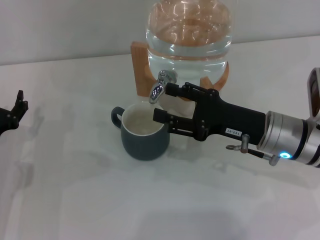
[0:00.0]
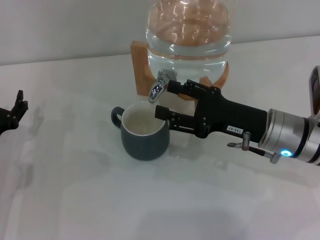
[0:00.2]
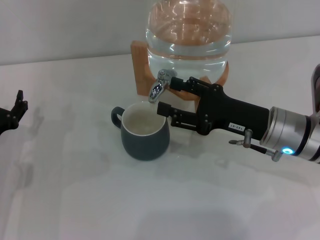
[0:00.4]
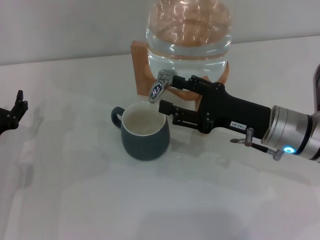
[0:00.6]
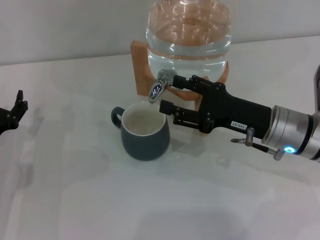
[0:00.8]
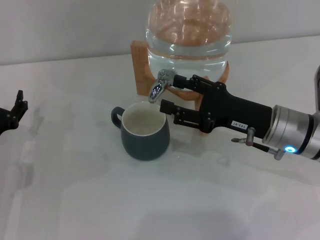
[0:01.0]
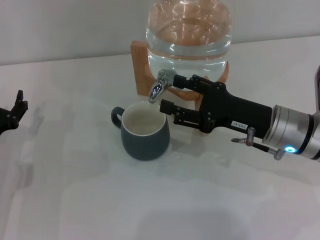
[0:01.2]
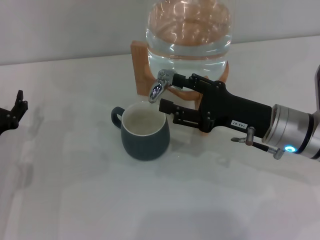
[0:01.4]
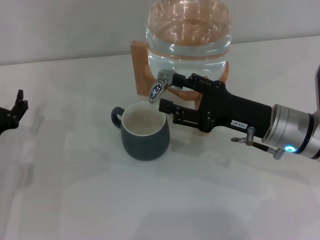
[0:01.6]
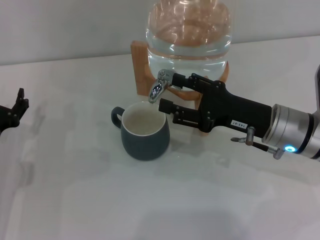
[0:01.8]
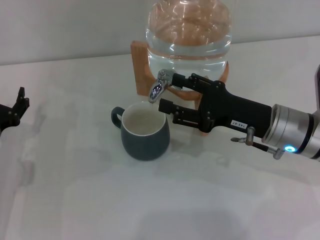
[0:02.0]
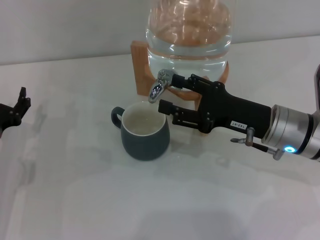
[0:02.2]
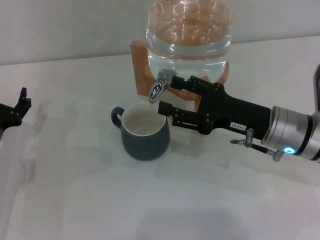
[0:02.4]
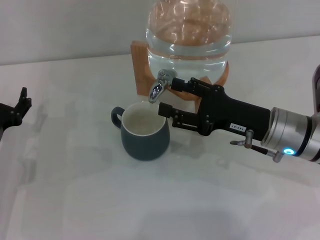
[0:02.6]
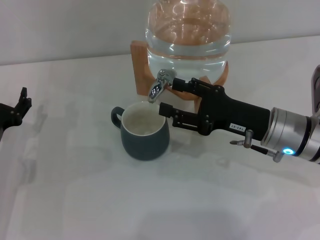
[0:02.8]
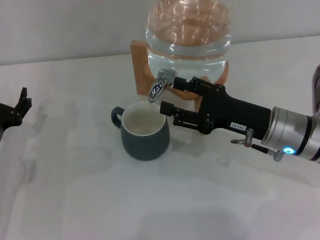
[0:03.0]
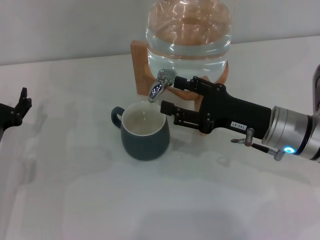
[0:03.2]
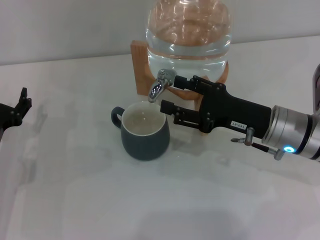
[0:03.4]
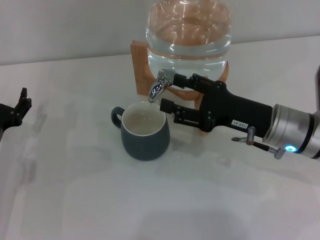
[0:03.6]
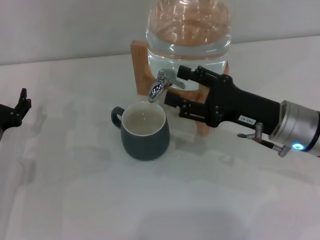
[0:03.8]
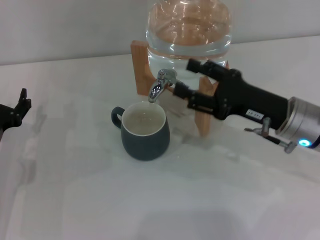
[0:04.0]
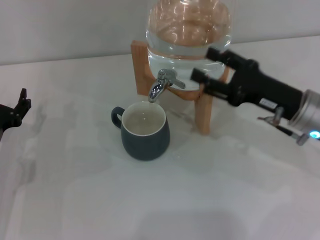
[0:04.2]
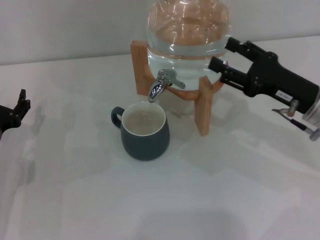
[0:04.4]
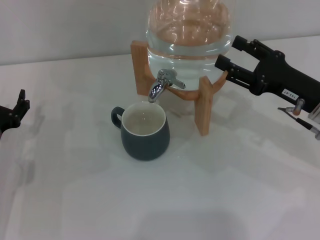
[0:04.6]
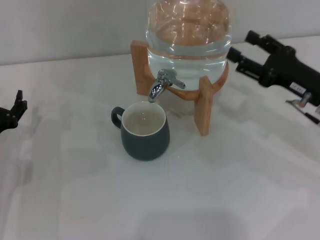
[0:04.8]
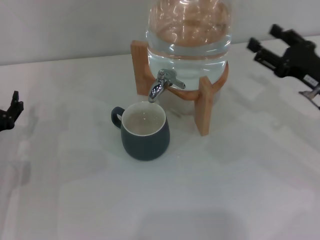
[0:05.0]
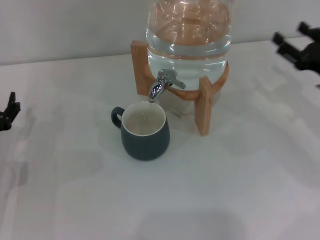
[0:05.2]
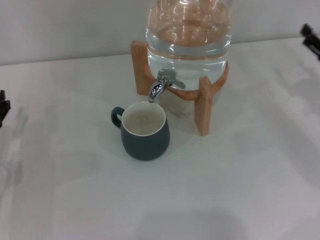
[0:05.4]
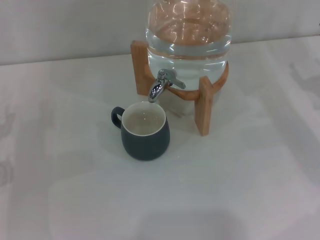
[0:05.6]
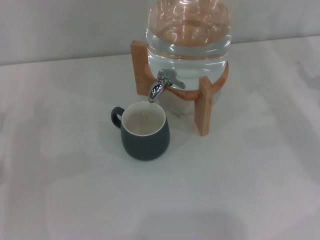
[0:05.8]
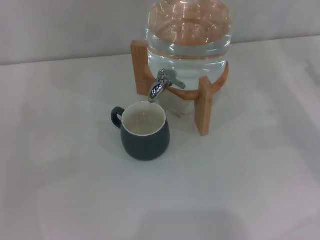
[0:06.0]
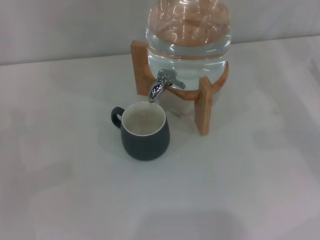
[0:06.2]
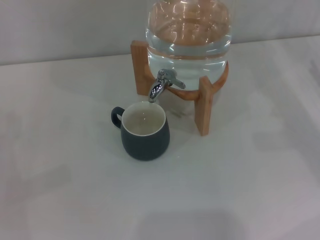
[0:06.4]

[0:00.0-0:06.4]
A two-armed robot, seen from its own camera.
Task of the whole recording: the left gripper pick up the black cup and place it horizontally under the faucet, the right gripper turn on the faucet to fill the cup, and then turn off the faucet.
Step, 0:00.0 to 0:03.6: Close the dispenser valve with the right gripper.
0:00.0 to 0:03.2: Both grippers stay put.
0:03.2 to 0:04.8: The right gripper heads to the right, covering roughly 10 cm.
0:04.8 to 0:06.4: The right gripper heads to the right, covering approximately 10 cm. The left gripper is displaced to the left by some 5 cm.

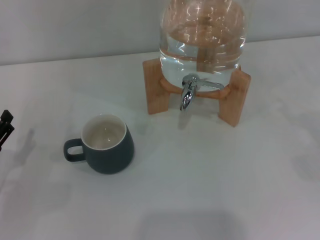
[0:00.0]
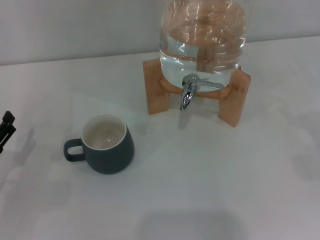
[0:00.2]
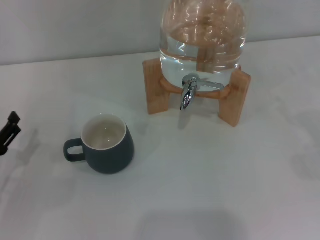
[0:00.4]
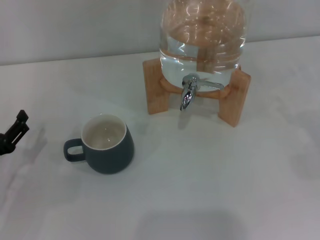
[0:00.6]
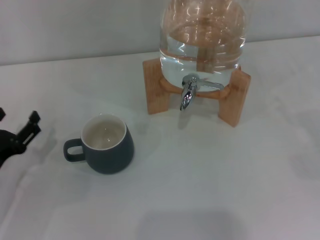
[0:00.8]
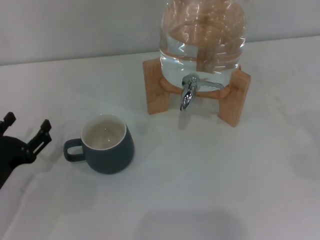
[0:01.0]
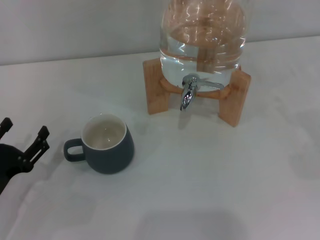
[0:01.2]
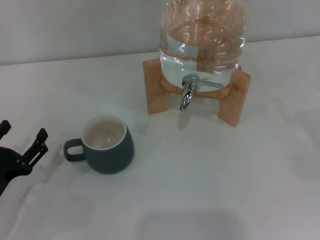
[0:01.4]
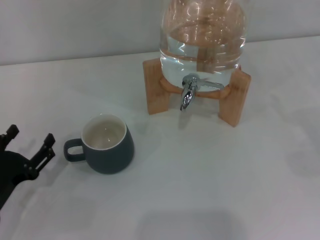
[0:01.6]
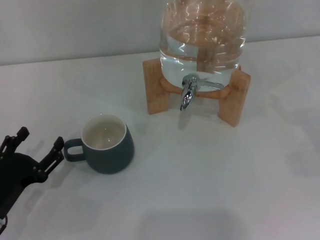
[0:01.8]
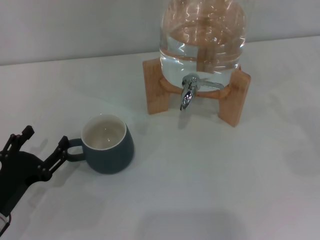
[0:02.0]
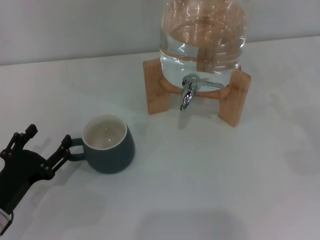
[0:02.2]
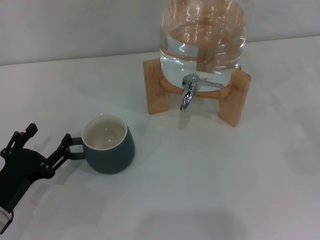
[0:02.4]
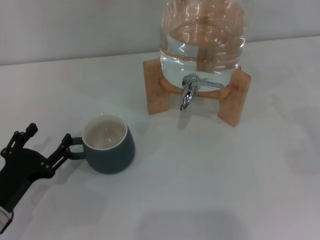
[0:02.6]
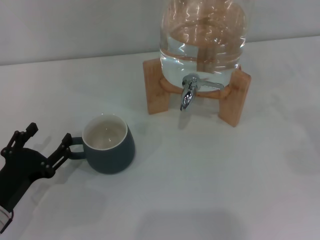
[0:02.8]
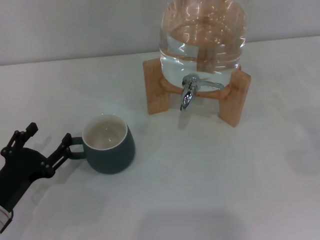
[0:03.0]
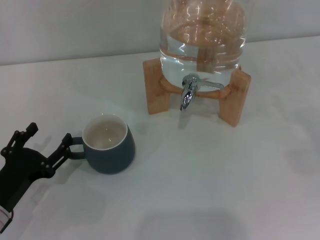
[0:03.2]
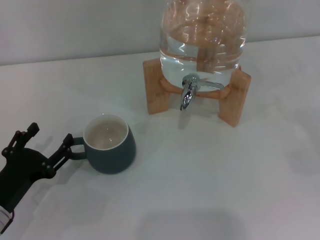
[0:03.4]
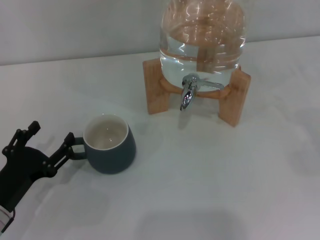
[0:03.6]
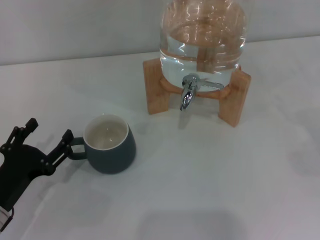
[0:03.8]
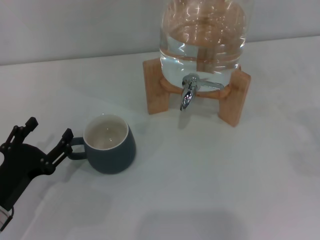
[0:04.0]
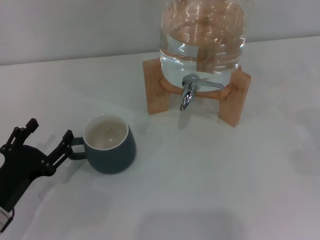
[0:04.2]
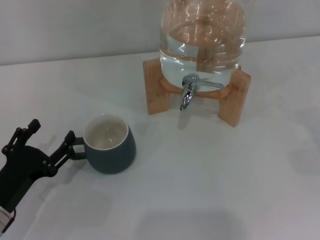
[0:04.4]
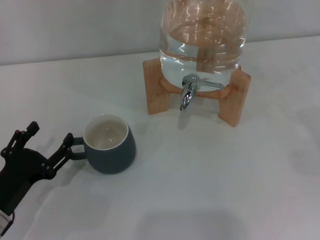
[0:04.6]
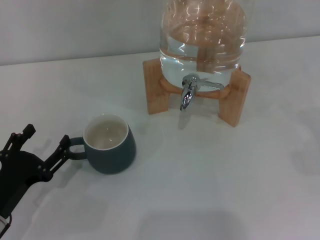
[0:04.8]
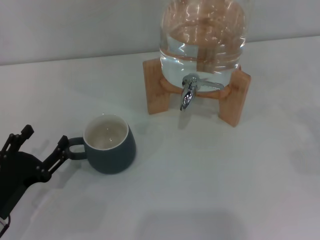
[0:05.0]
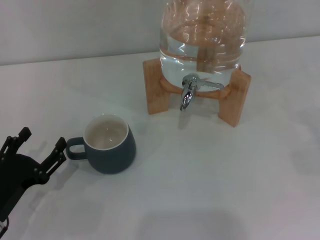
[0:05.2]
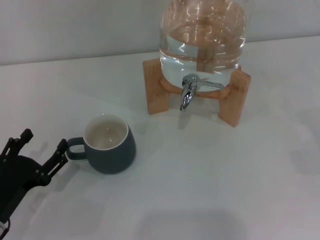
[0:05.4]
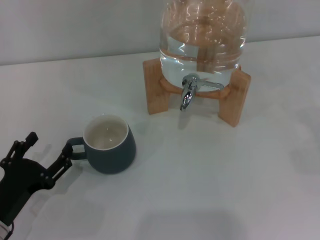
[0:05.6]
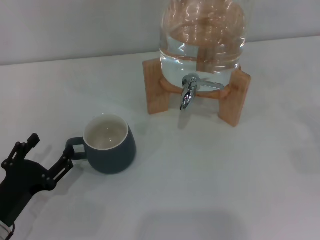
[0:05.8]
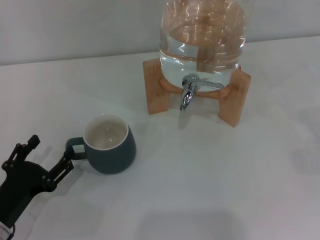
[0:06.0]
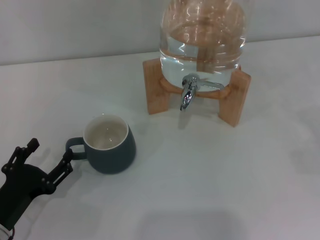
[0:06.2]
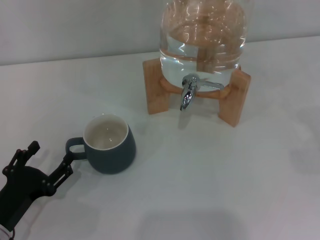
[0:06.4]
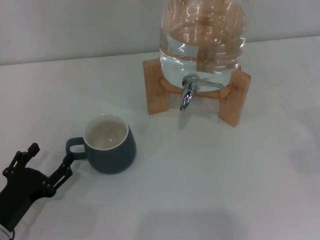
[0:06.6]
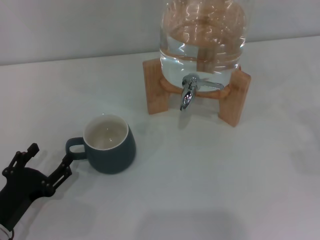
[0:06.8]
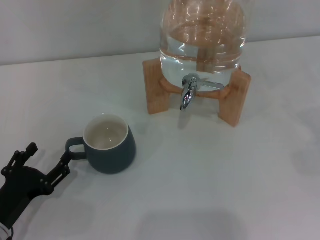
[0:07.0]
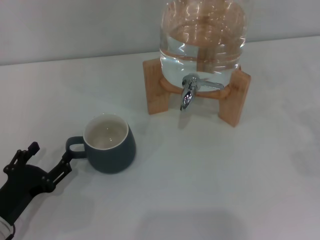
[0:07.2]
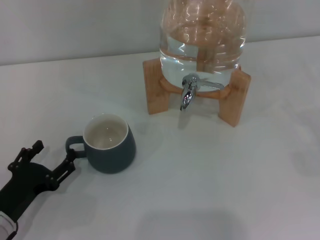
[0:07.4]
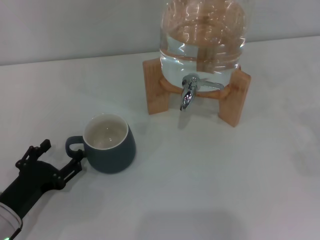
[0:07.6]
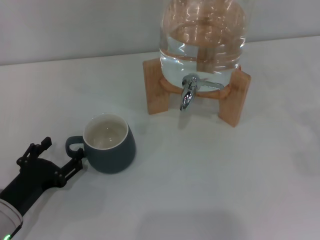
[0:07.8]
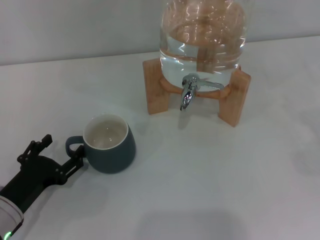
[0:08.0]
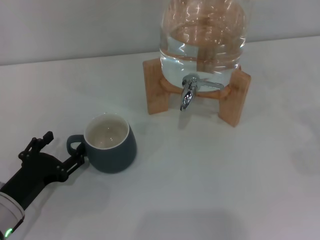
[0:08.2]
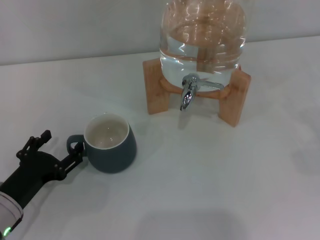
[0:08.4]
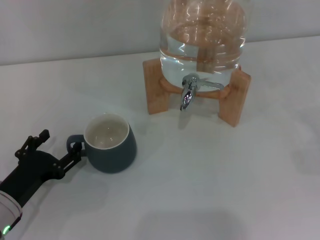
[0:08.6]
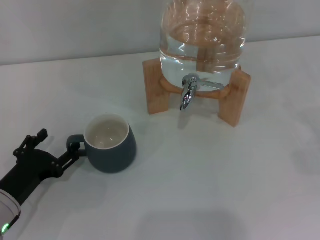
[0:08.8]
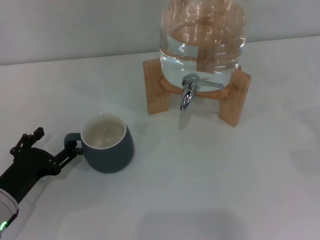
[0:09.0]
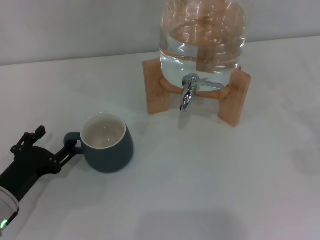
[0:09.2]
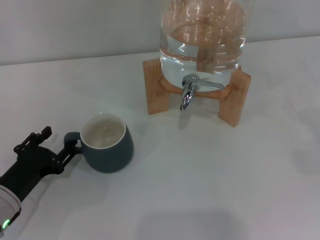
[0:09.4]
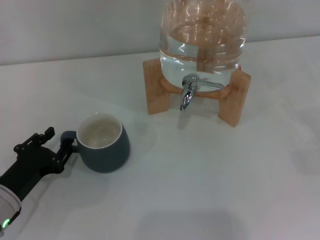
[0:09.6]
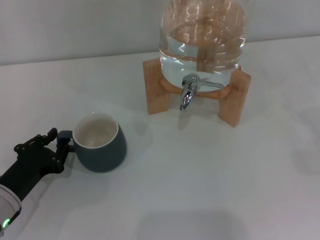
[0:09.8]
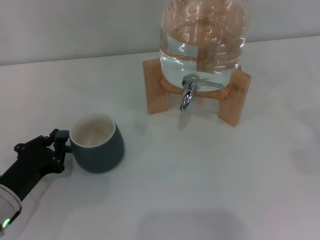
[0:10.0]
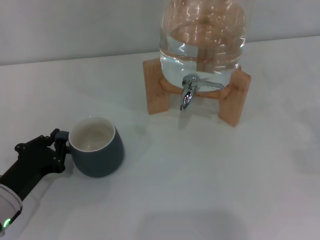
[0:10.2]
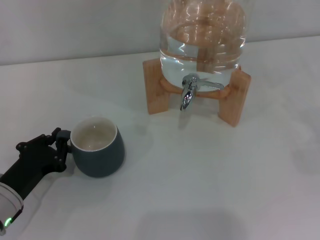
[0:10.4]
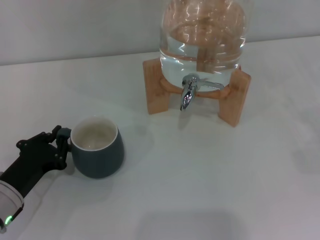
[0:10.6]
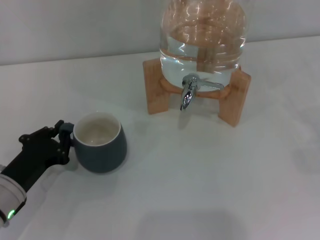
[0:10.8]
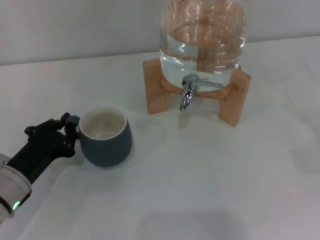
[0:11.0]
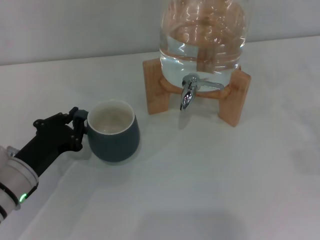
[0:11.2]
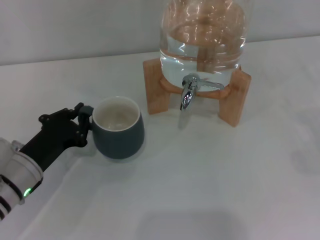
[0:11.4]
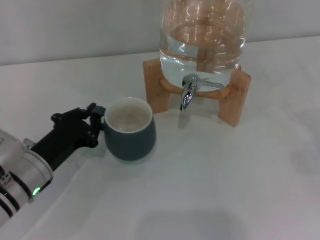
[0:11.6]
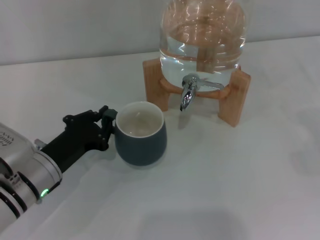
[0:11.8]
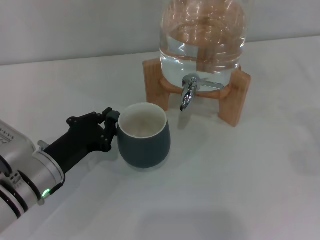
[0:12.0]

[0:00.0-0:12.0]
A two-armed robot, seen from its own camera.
Task of the whole recording: the left gripper pick up the black cup and place it horizontally under the faucet, the right gripper turn on the faucet to fill the cup, and then turn off the faucet.
0:00.0 to 0:03.0: The grippers move only a little.
0:03.0 to 0:04.4: Both grippers stay put.
0:04.4 to 0:09.0: There are only small adjustments of the grippers.
0:09.0 to 0:10.4: The left gripper closes up.
0:10.4 to 0:12.0: The left gripper moves to the right, roughly 5 cm.

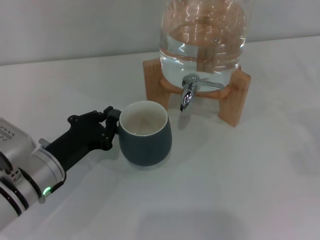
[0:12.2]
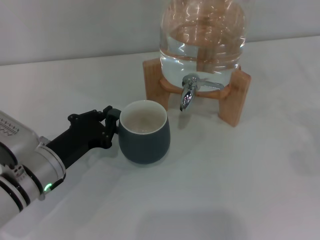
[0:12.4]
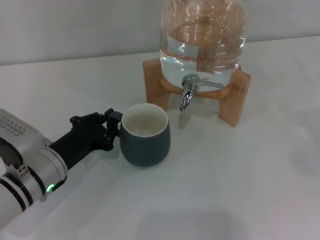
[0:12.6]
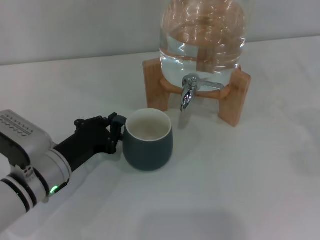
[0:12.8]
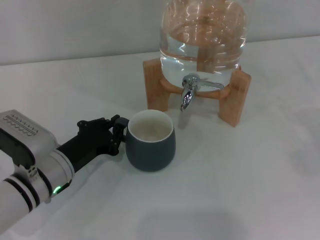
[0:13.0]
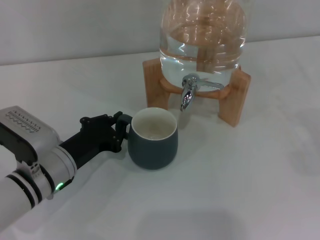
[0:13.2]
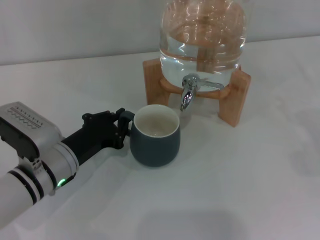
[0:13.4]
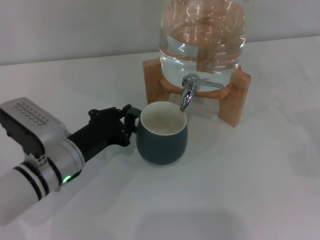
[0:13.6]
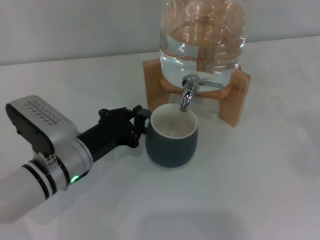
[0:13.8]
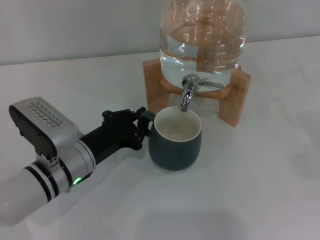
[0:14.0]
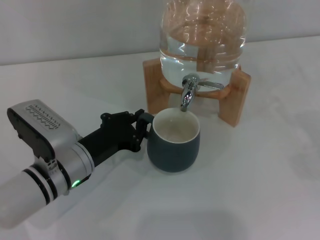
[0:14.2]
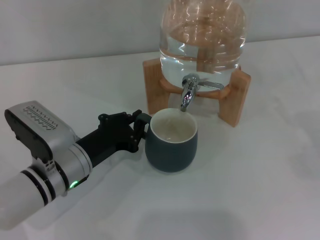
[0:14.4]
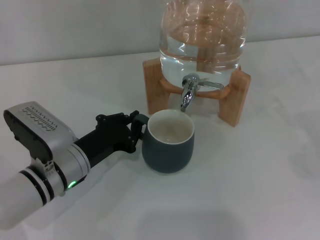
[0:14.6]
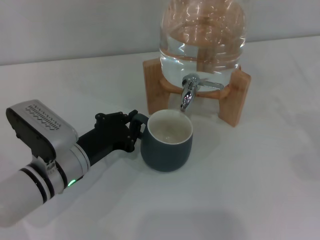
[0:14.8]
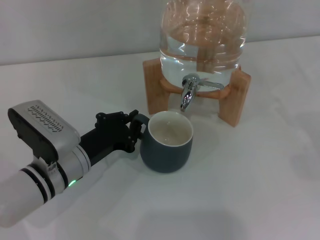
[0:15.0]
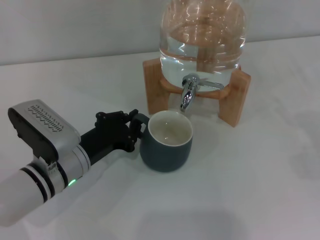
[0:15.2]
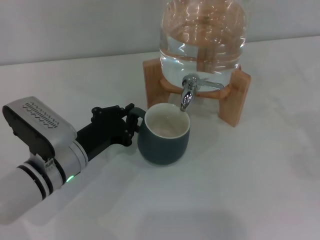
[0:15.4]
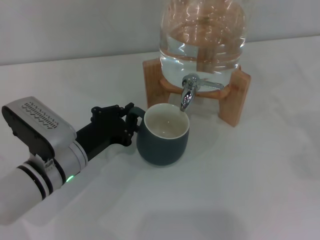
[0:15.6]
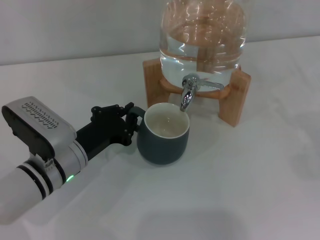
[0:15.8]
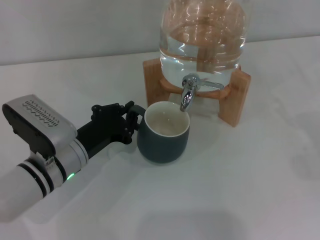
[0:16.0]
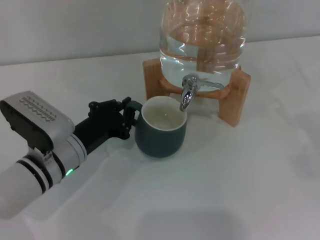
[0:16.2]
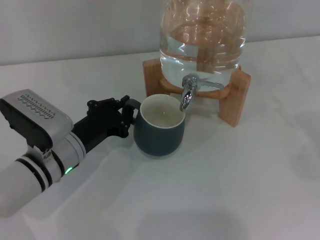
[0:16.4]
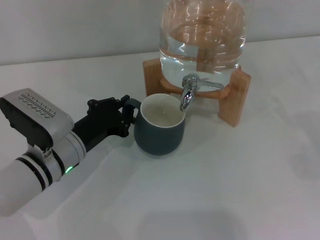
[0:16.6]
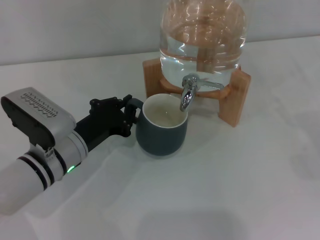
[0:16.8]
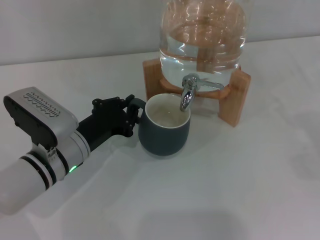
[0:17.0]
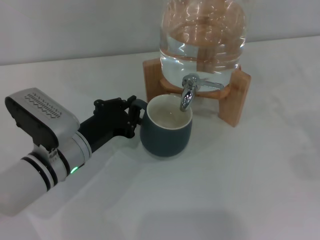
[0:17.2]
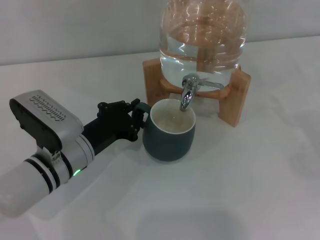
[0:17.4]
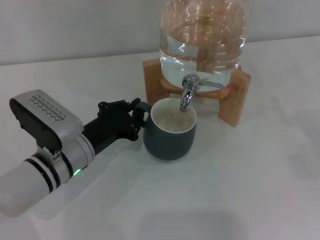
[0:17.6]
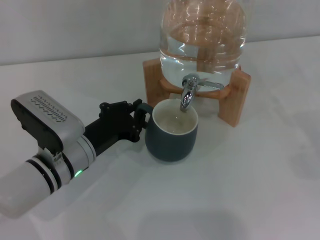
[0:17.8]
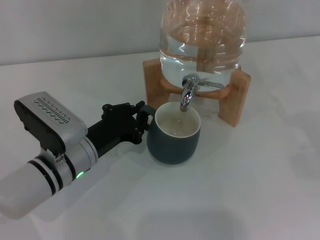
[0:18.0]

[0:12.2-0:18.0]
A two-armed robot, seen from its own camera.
Task of the whole recording: the left gripper pick up the black cup and place it horizontally under the faucet, the right gripper turn on the faucet to fill the cup, and then turn off the faucet.
0:12.2 to 0:18.0: There are only small adjustments of the grippers.